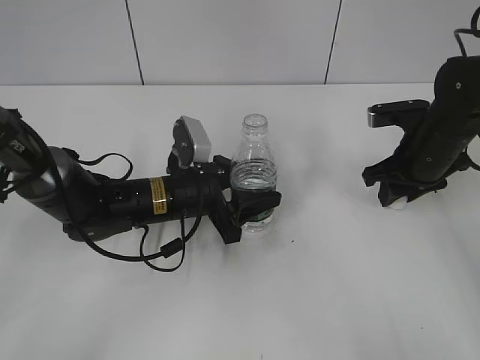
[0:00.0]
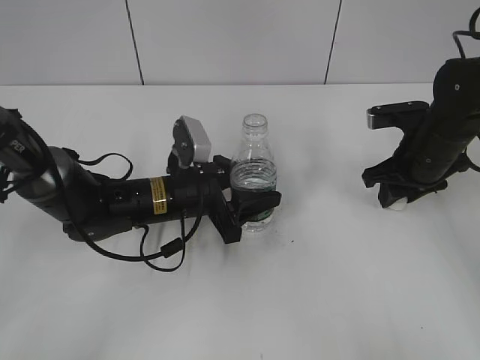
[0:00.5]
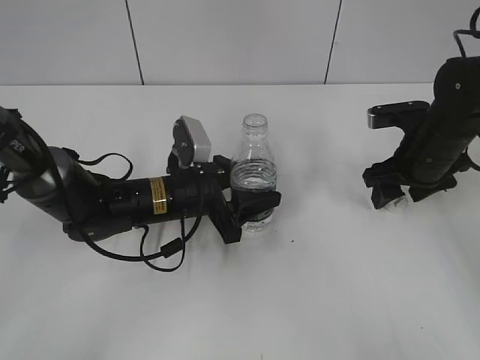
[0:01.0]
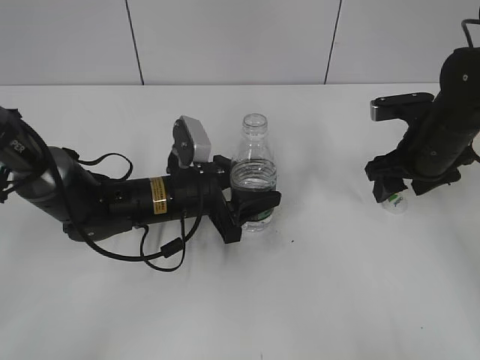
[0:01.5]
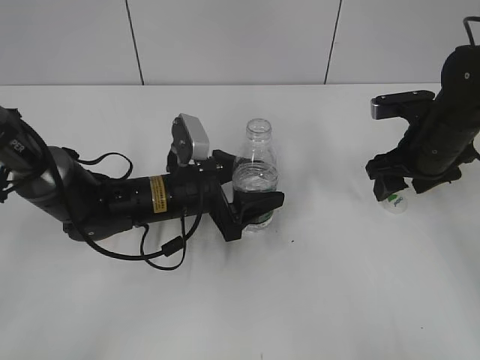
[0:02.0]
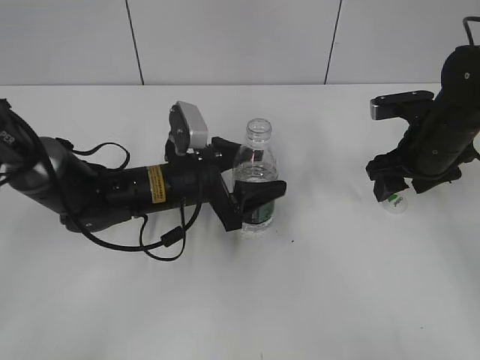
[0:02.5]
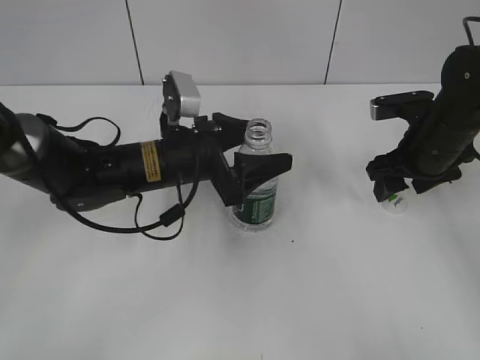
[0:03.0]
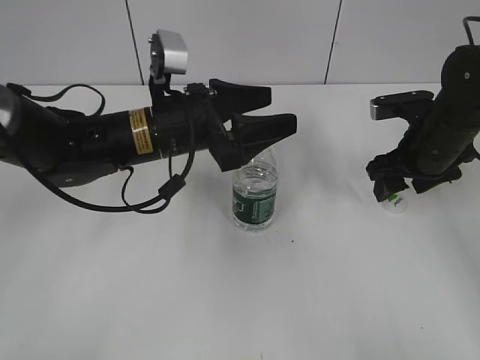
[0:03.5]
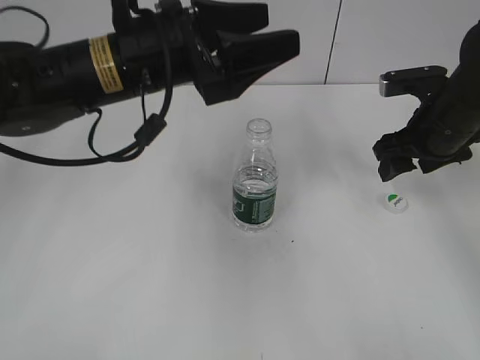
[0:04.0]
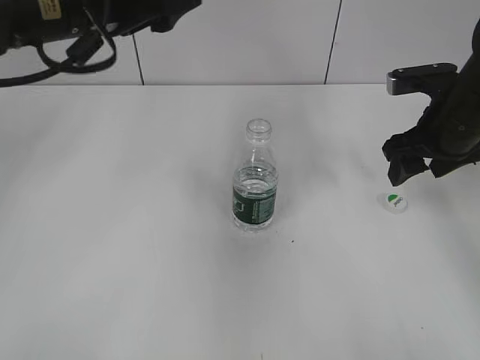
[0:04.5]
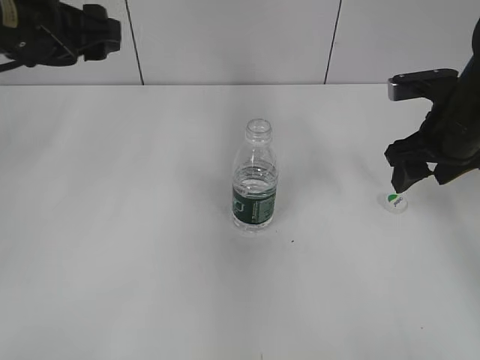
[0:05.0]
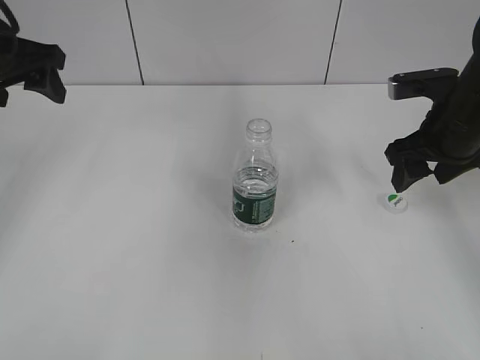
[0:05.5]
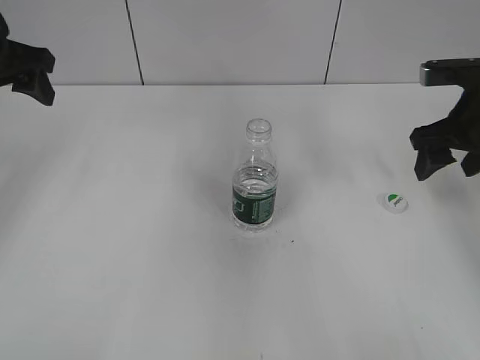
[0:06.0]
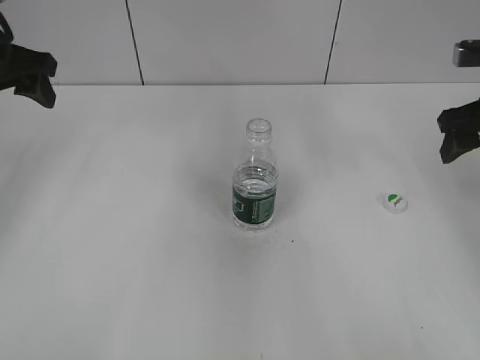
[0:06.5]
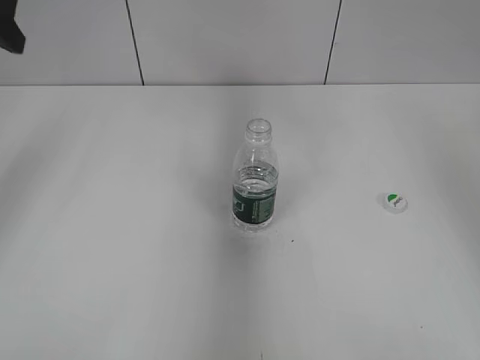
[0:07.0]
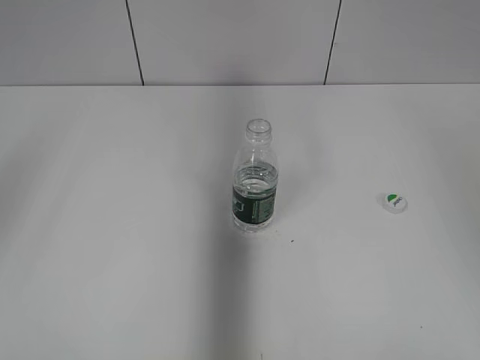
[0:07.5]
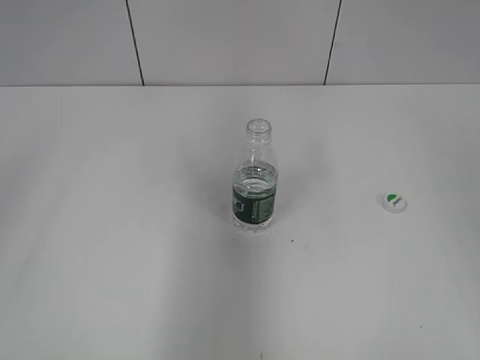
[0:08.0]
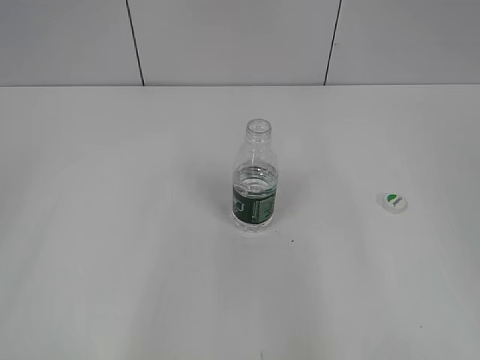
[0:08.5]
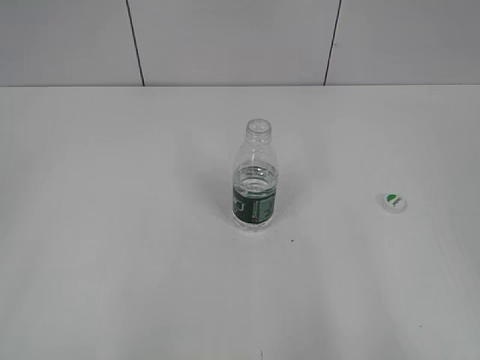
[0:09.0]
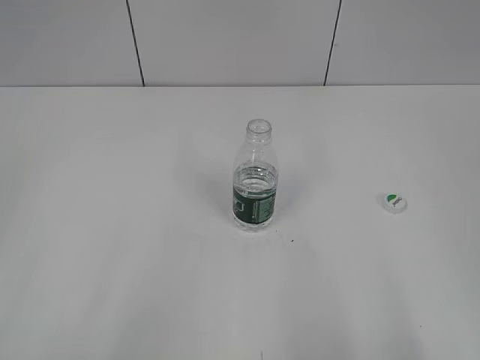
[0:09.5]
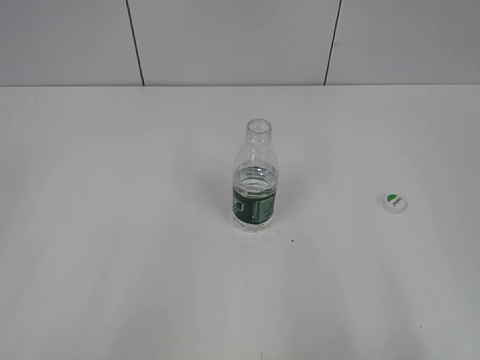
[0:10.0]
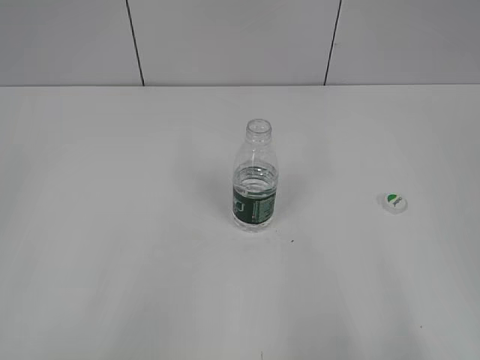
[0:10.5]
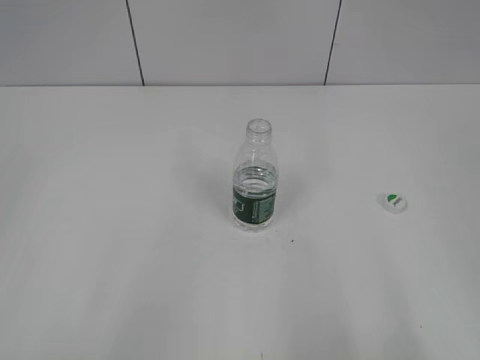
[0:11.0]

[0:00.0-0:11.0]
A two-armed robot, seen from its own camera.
Step, 0:02.0 to 0:03.5: Place the bottle on the table with the left gripper.
0:00.0 to 0:02.0: The right gripper opens its fingers. The left gripper opens.
0:02.0 to 0:03.5: The left gripper goes some 10 cm upward.
0:03.5 to 0:05.5: The left gripper goes roughly 20 cm to the left and upward; the right gripper moves about 5 cm.
0:05.5 to 0:07.5: The right gripper heads upward and backward, covering about 25 cm. The left gripper heads backward and upward, covering roughly 15 cm.
0:07.5 to 0:09.0: The grippers both shift backward by roughly 25 cm.

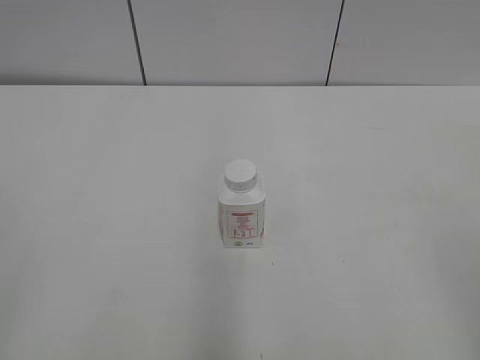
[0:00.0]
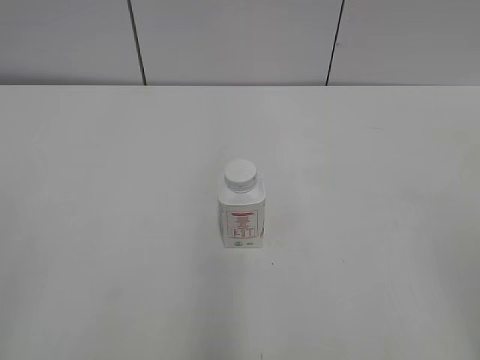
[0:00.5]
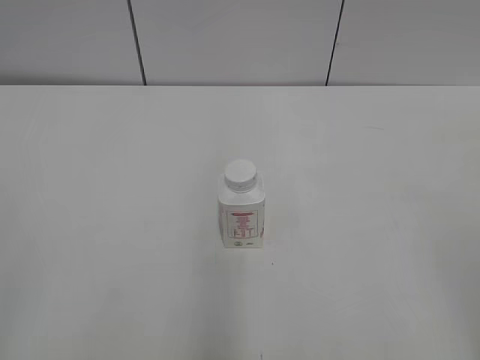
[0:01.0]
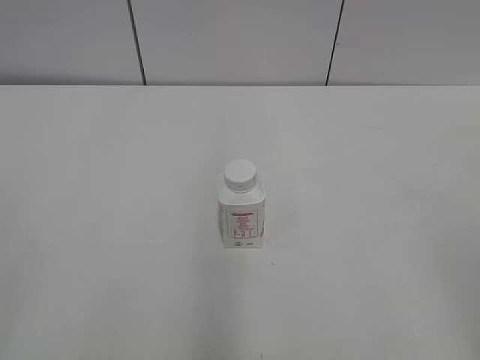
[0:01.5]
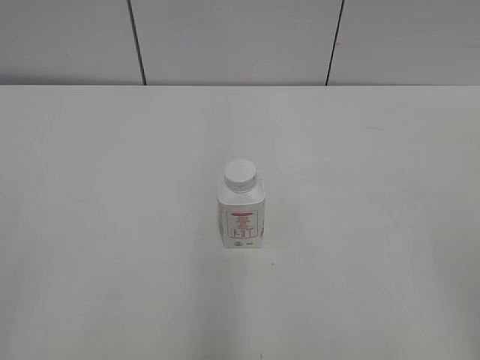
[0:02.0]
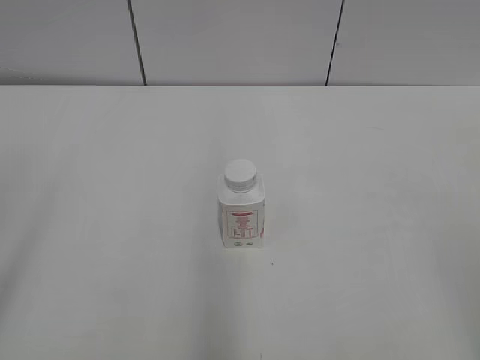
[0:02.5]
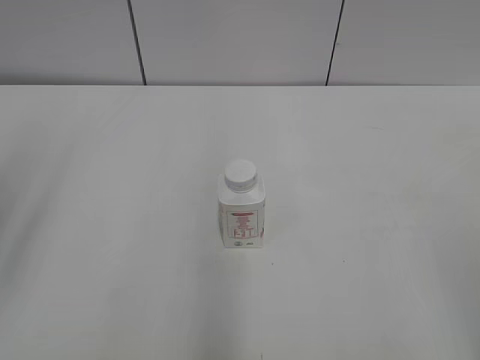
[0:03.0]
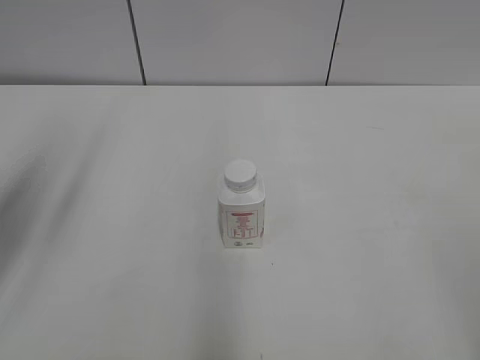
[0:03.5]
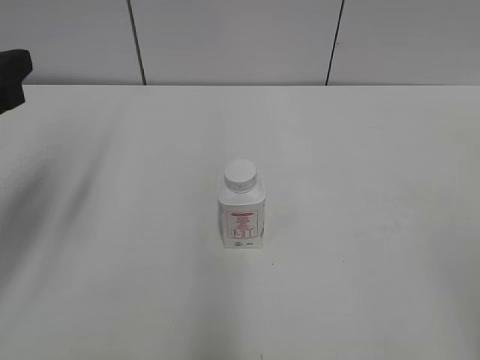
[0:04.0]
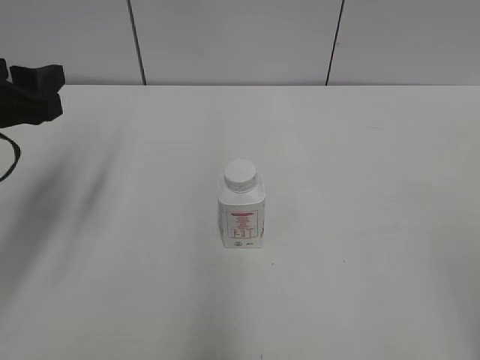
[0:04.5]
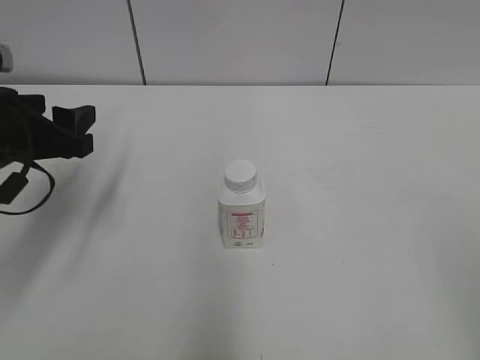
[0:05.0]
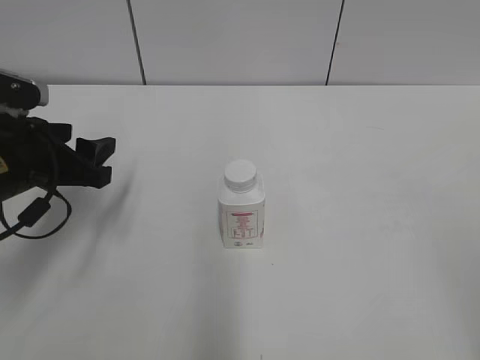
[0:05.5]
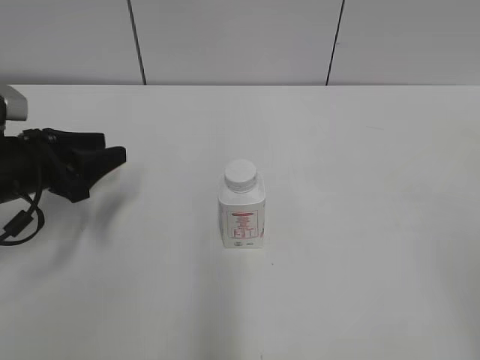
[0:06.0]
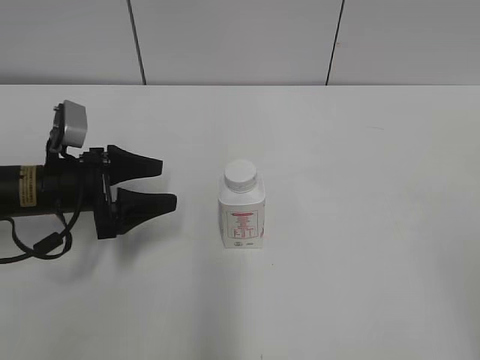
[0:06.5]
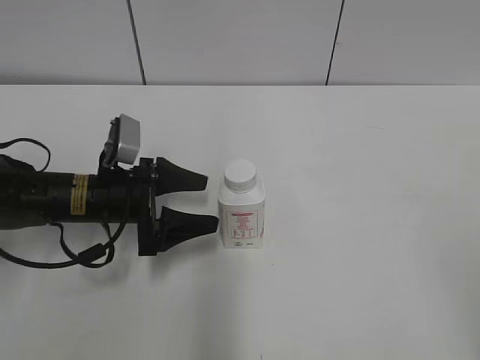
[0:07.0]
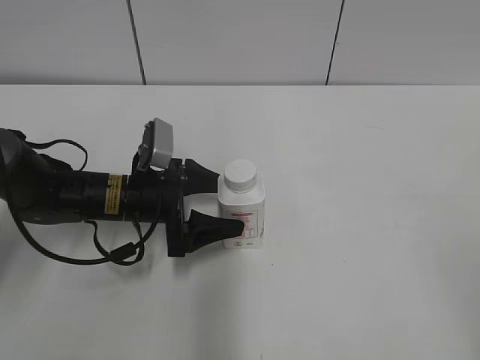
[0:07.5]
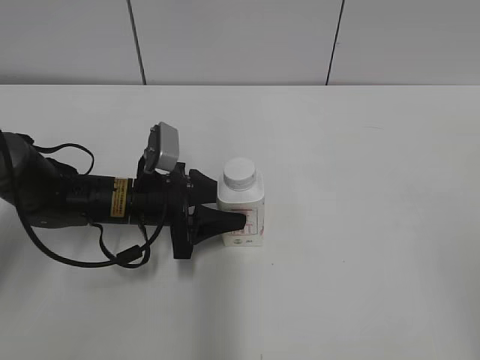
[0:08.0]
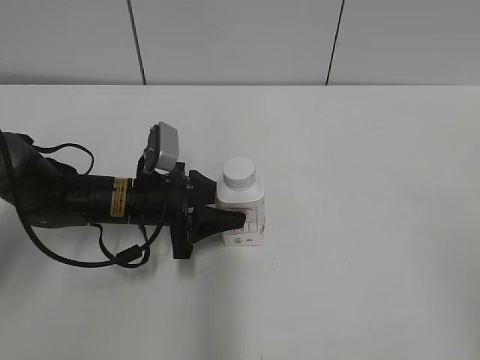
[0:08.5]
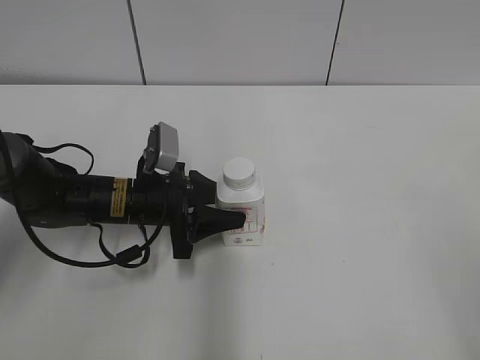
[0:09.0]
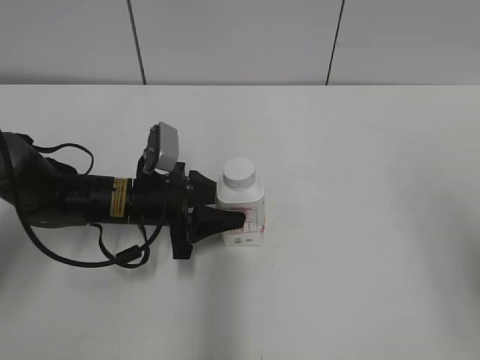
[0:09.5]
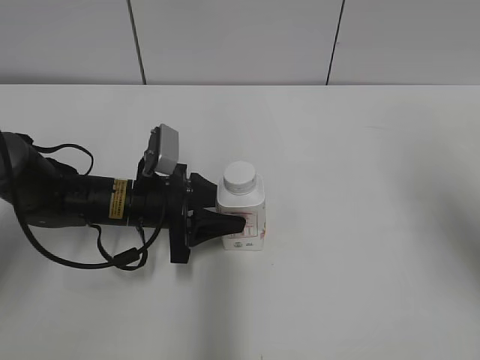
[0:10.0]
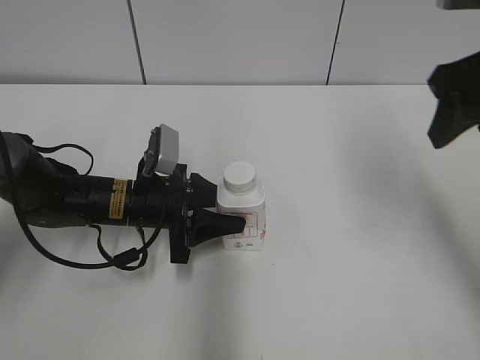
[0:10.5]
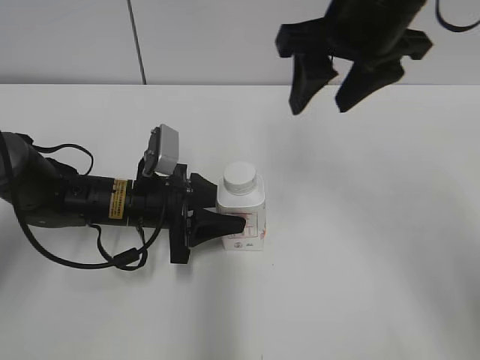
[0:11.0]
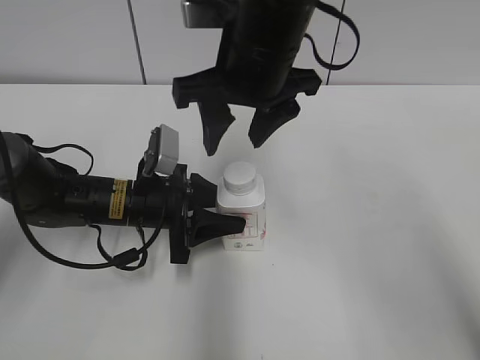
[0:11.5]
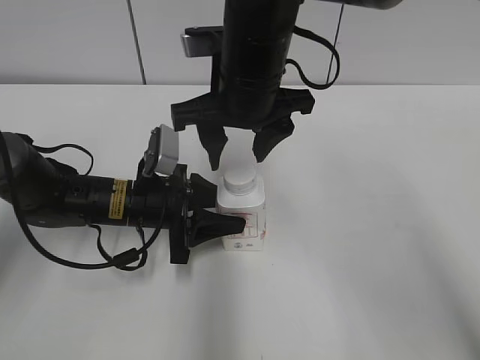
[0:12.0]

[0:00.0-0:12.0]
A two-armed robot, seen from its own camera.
Step, 0:00.0 to 0:09.5: Grasp the bottle and move it to the center of the table with the left gripper.
0:02.0 to 0:04.0: The left gripper goes some 25 cm forward, and opens.
0:04.0 to 0:06.0: The left gripper heads downward and forward, covering some 15 cm.
0:06.0 to 0:08.0: The left gripper shifts some 15 cm to the right and downward, and opens, then closes once more.
0:08.0 to 0:10.0: The right gripper heads forward, covering approximately 20 cm.
0:10.0 to 0:12.0: The right gripper moves to the left and forward, roughly 30 cm.

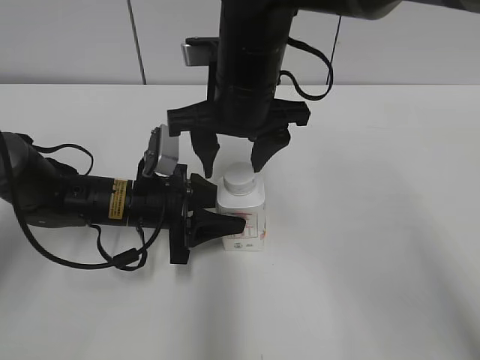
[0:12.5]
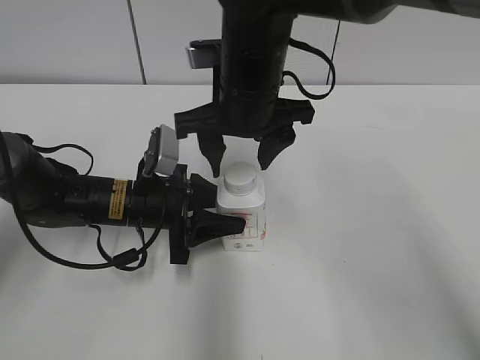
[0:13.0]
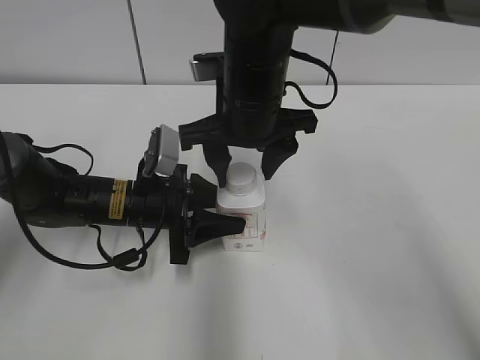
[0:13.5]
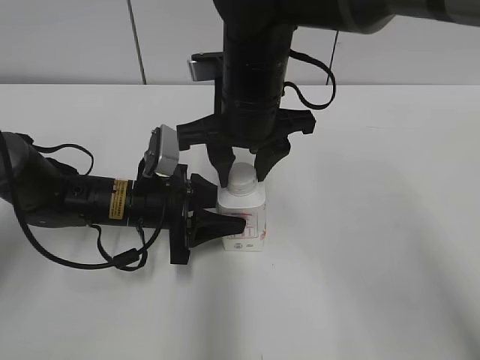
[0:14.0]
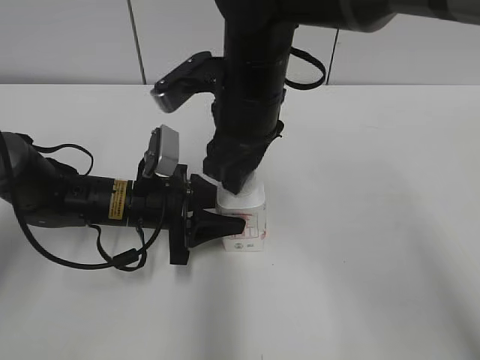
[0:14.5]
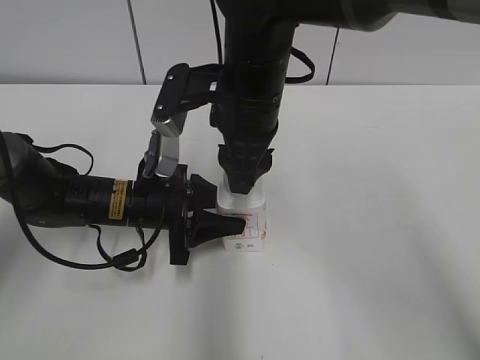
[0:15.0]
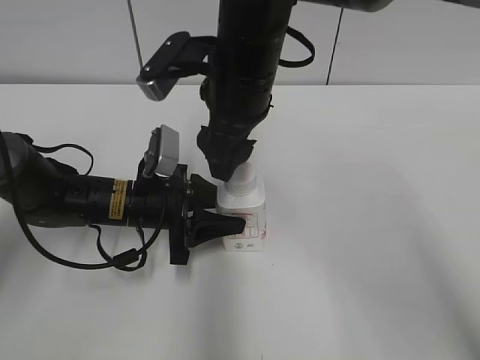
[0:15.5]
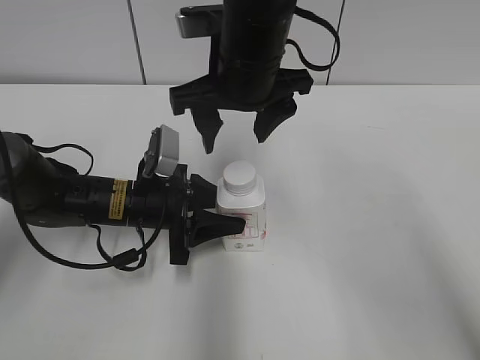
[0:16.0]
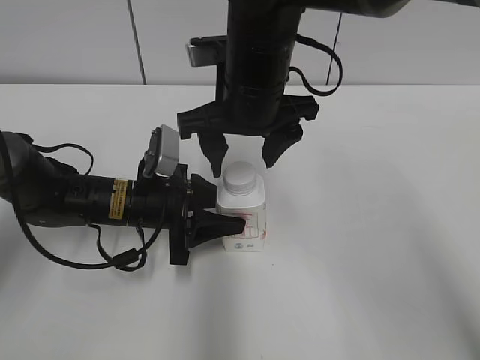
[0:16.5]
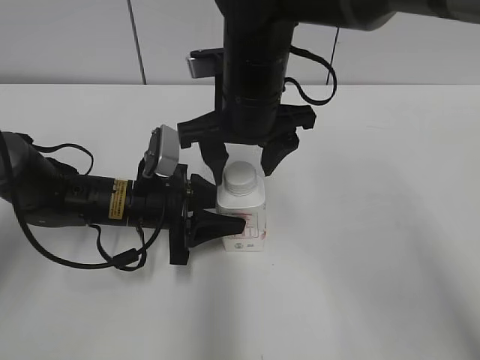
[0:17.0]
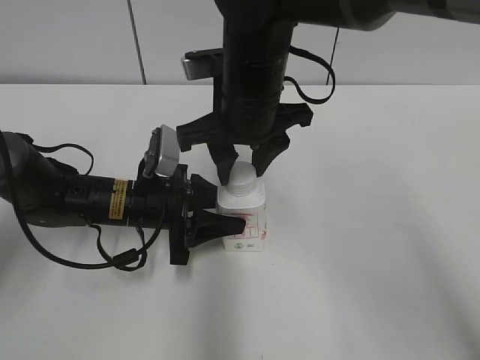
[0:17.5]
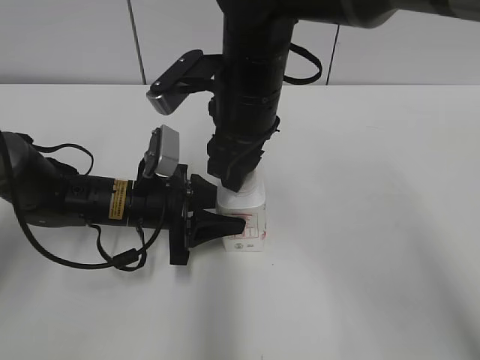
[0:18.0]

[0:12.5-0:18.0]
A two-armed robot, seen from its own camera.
0:12.5 to 0:14.5: The right gripper closes its fingers.
0:14.5 to 0:16.0: The right gripper opens.
0:16.0 to 0:18.0: The right gripper closes.
